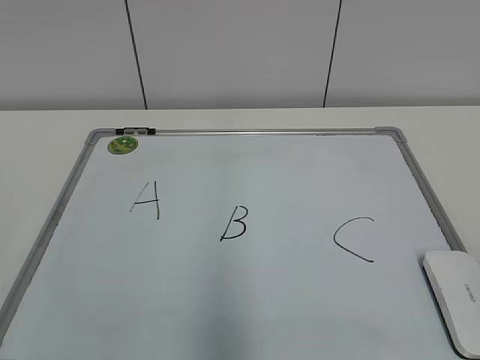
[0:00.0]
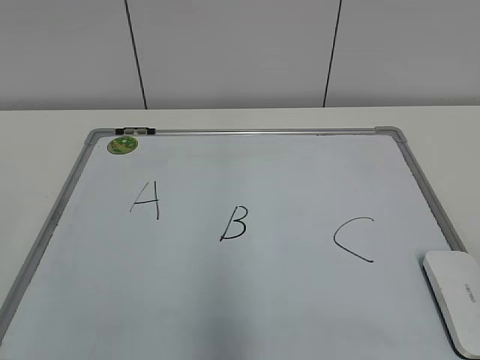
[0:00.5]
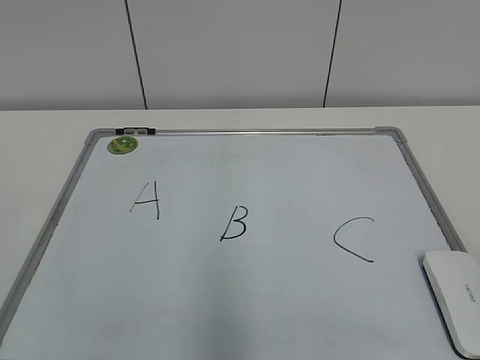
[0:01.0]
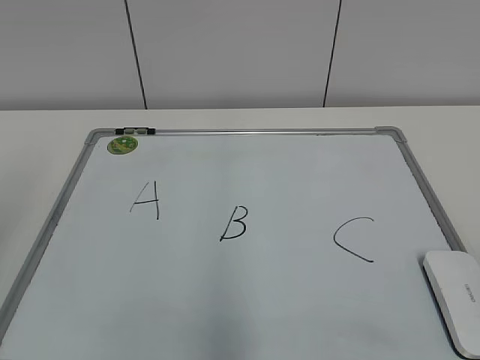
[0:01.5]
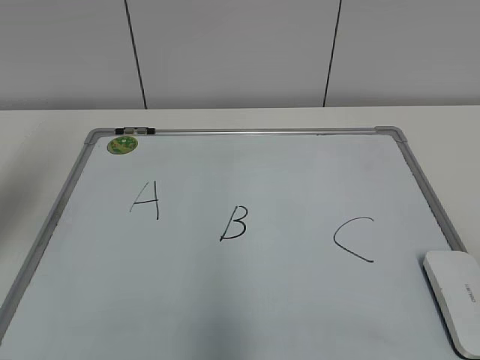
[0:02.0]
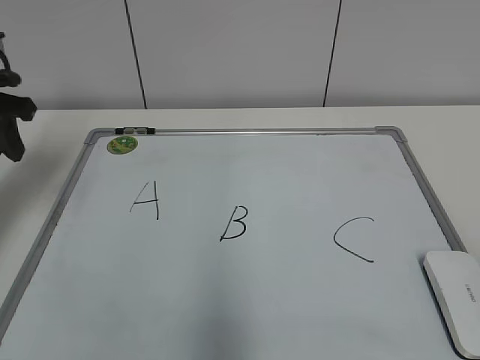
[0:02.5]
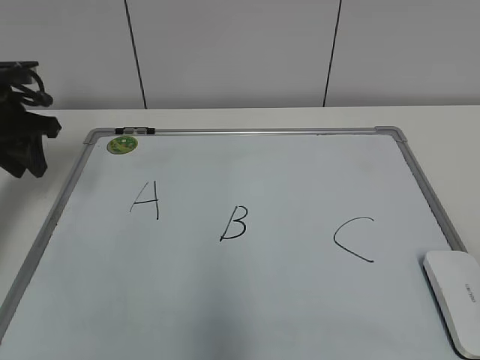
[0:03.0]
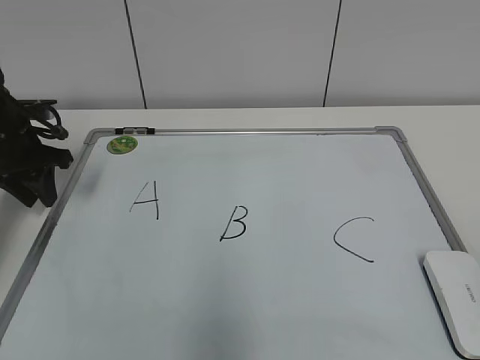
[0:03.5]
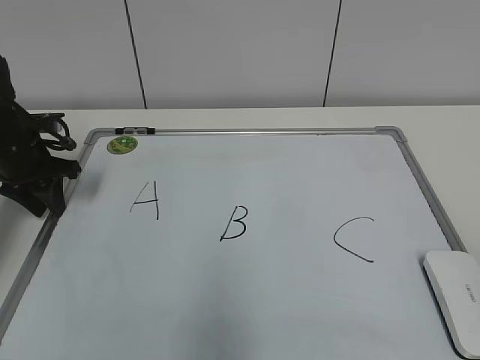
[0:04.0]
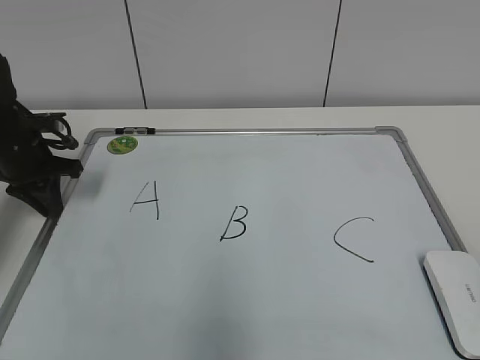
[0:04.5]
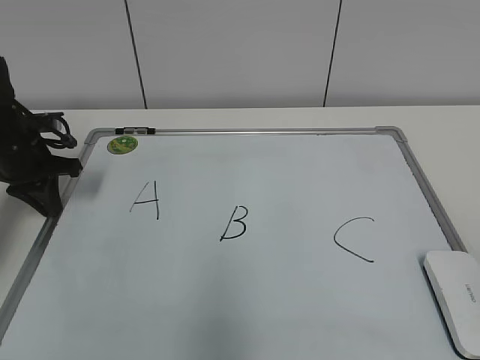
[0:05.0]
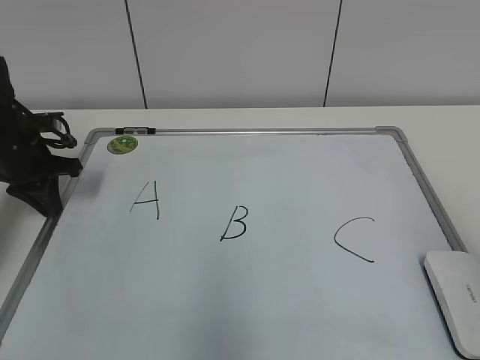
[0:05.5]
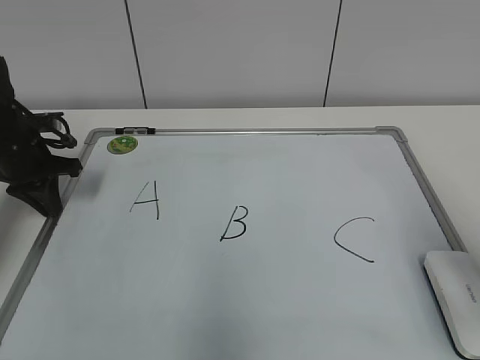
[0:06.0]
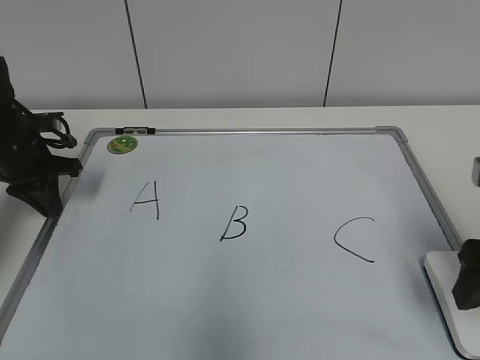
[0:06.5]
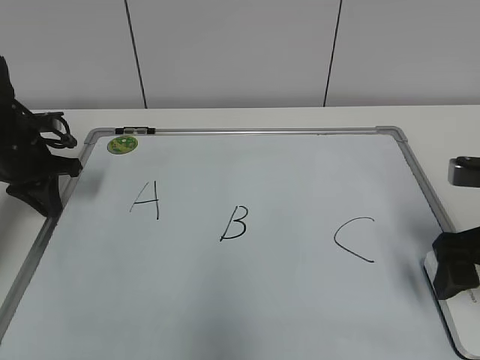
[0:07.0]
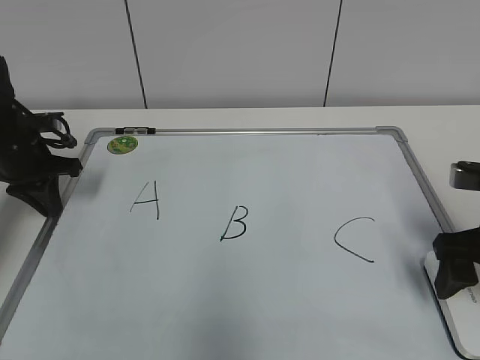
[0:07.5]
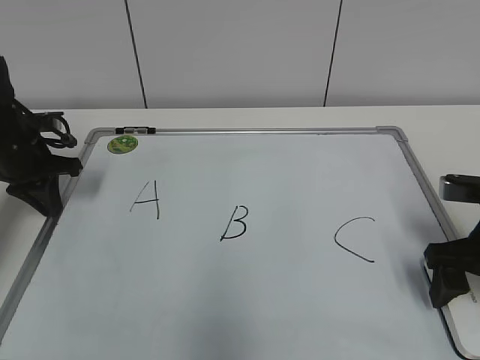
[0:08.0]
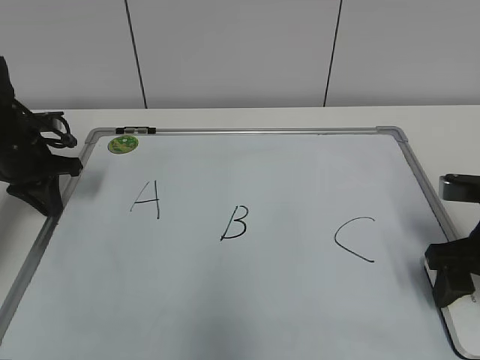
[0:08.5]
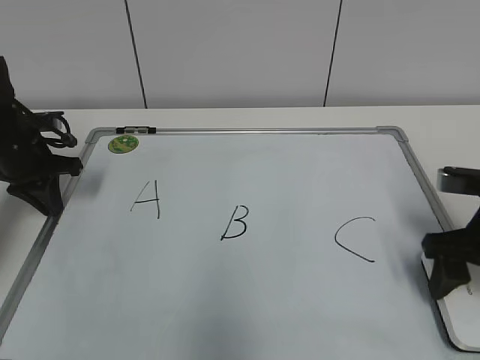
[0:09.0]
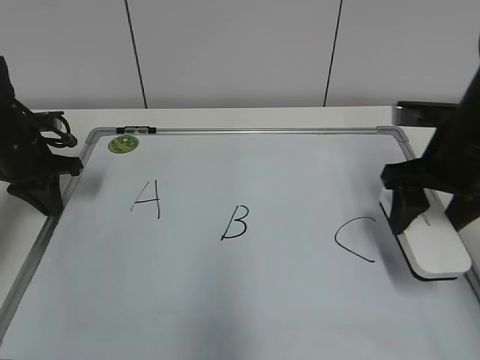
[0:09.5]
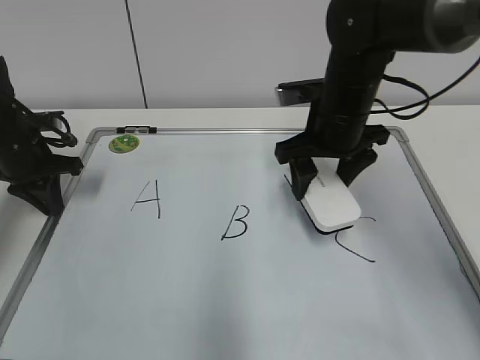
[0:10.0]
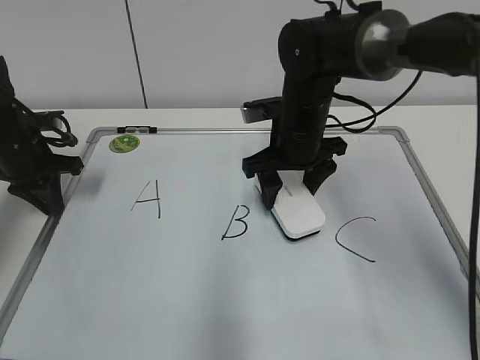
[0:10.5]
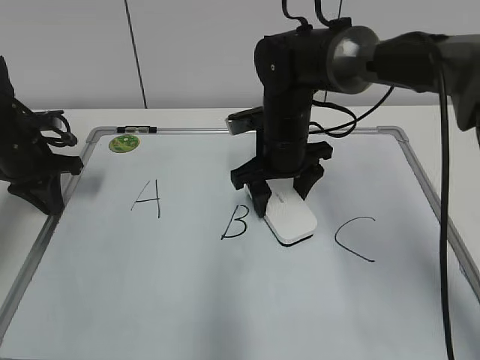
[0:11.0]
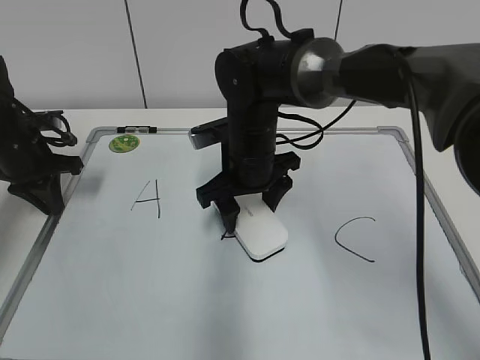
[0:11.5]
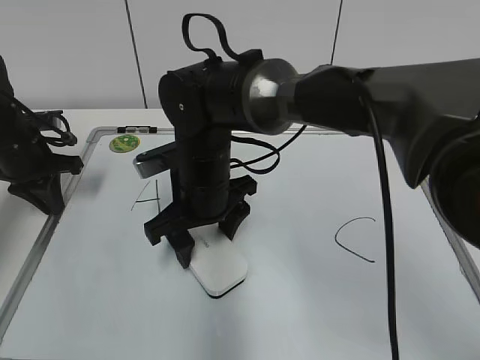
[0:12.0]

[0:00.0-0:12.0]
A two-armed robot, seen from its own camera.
Task of the whole recording: pick up the eraser on the blackboard and erase the letter "B".
Step, 0:00.0 to 0:04.5: Hold the drawing board steady with your left hand.
Step, 0:05.0 to 0:08.5: Grab the eraser with your right hand.
Step, 0:09.0 to 0:12.0: Erase the letter B with your right hand.
0:02.0 to 0:04.0: The left gripper heads downward and forward, covering roughly 25 cm.
0:04.0 to 0:06.0: The left gripper closes up. The right gripper moves forward, roughly 15 cm.
0:06.0 to 0:08.0: The right gripper shifts roughly 15 cm downward and forward, and opens up.
0:08.0 to 0:10.0: The right gripper heads to the left, forward and upward, covering about 20 cm, and closes.
0:10.0 to 0:12.0: The right gripper travels to the left by some 15 cm.

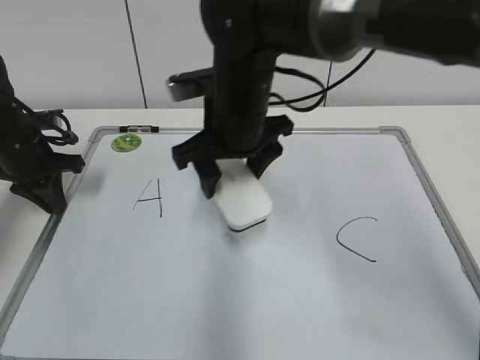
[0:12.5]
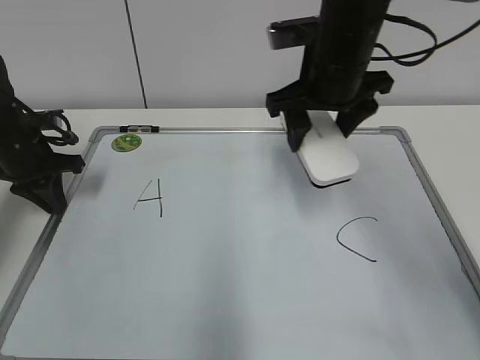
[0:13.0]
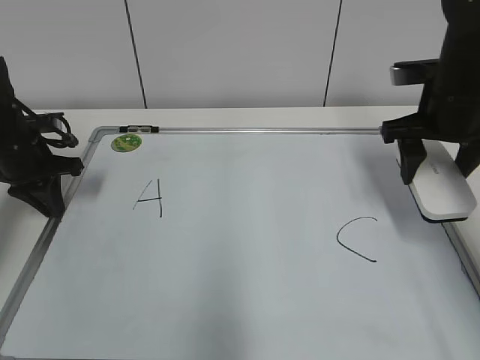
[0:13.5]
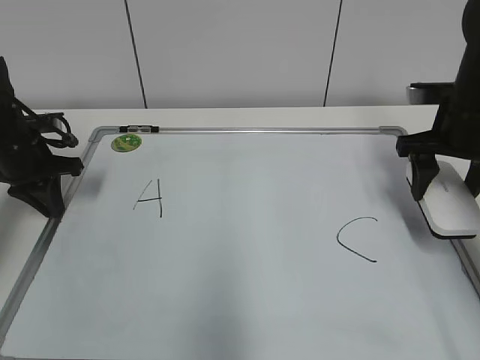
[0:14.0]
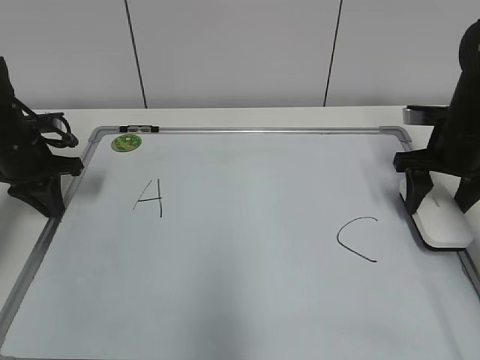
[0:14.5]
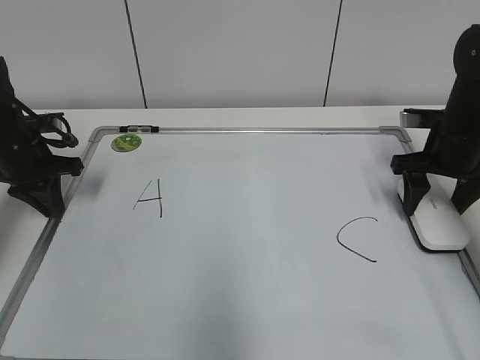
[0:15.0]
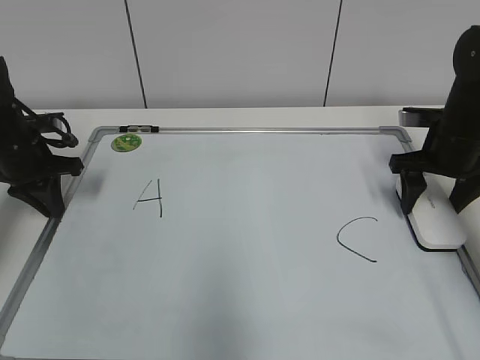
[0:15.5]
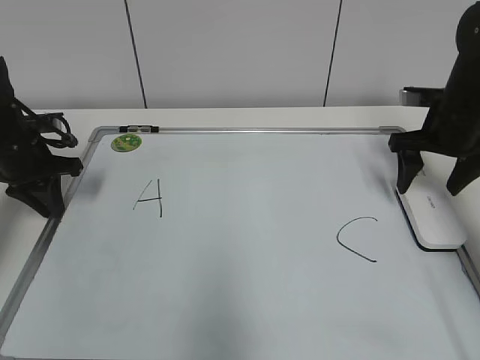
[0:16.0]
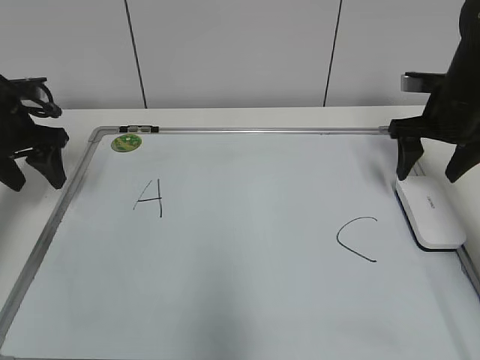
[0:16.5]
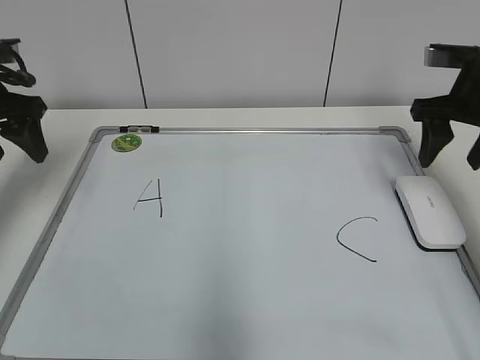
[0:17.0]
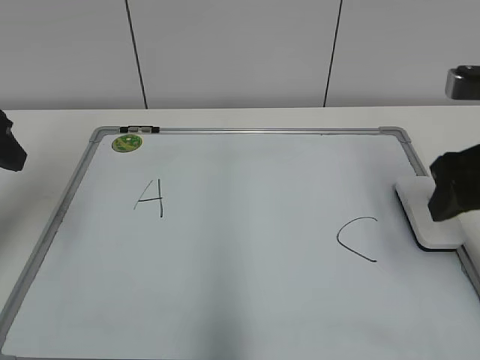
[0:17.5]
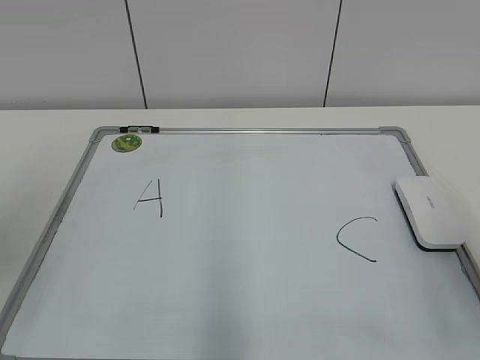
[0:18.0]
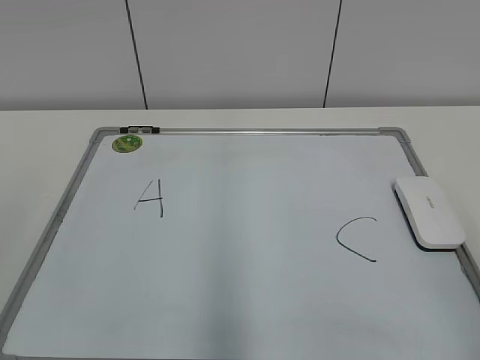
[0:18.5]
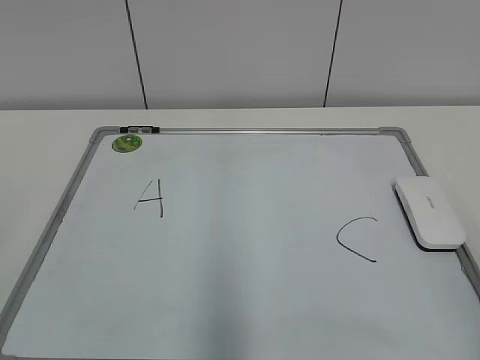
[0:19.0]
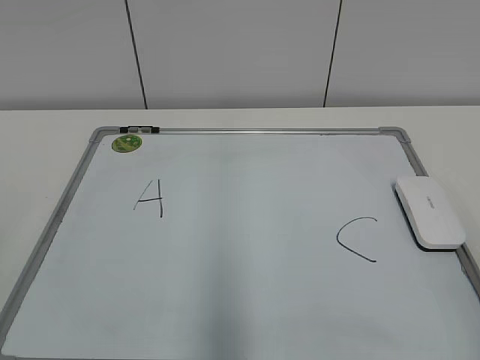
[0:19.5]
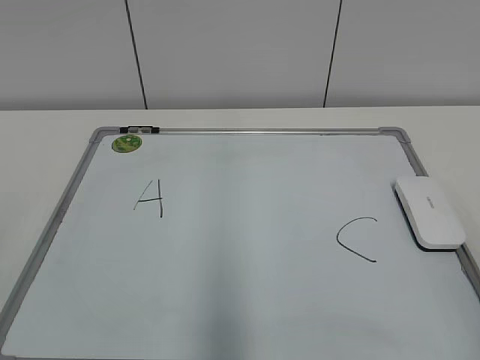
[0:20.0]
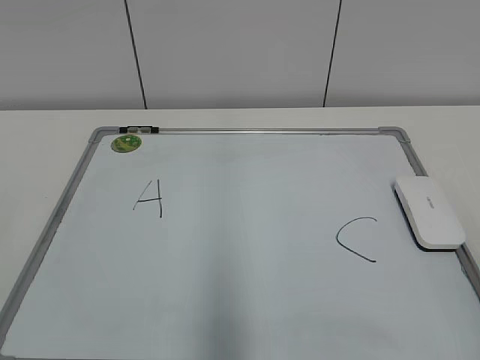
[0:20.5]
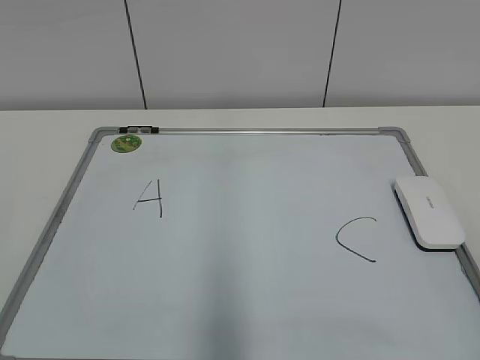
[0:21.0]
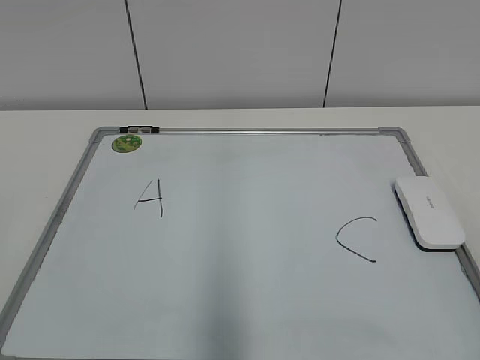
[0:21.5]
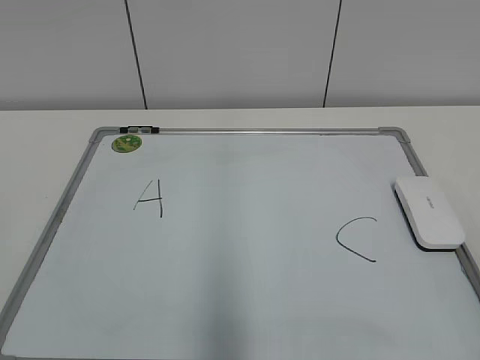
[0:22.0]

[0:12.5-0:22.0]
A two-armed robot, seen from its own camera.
Task of the whole recording: pick up the eraser on the blackboard and erase the letter "B".
Step, 0:12.5 to 0:15.5: Put down the eraser with your right hand.
0:12.5 to 0:14.5: The right gripper moves to the right, roughly 30 cm.
0:14.5 to 0:16.5: The left gripper is displaced upward by some 5 cm, and opens. The right gripper opens its fingers.
0:16.5 to 0:18.0: The left gripper goes roughly 25 cm backward and upward, while the right gripper goes roughly 30 cm backward, and closes its fingers.

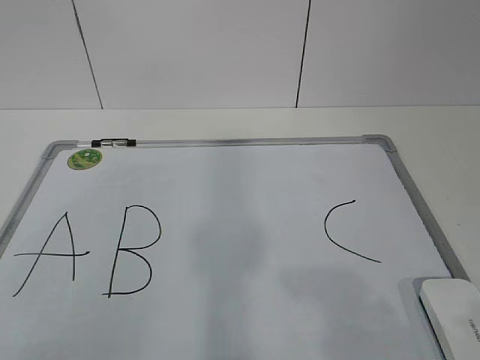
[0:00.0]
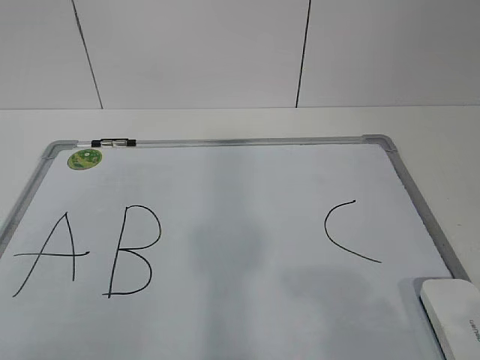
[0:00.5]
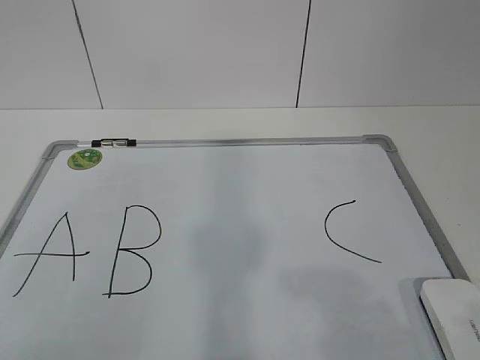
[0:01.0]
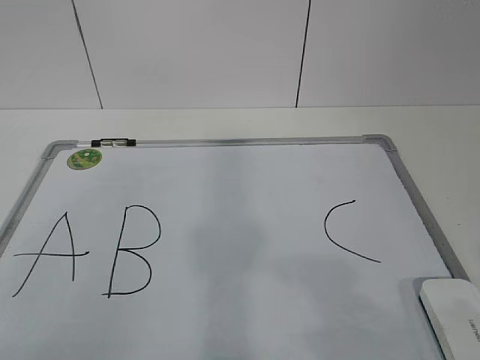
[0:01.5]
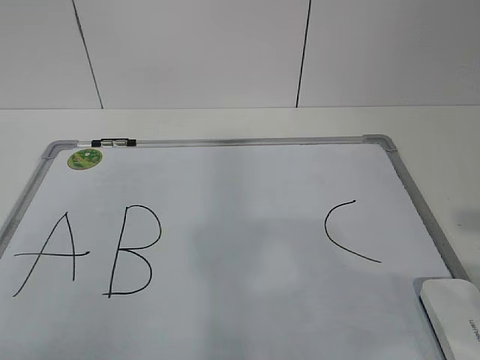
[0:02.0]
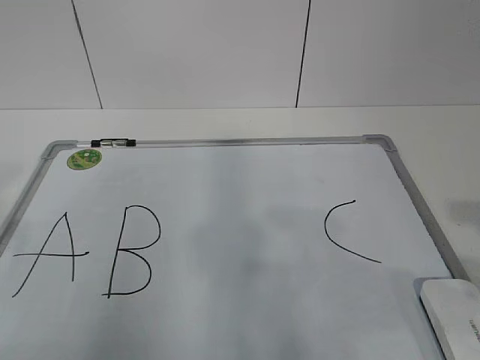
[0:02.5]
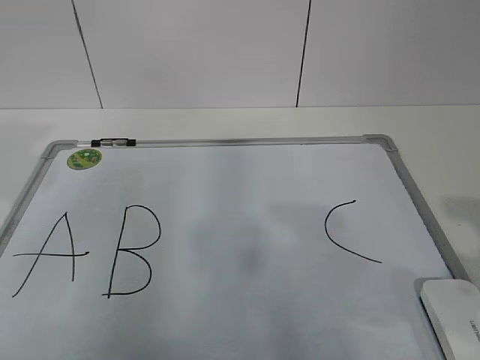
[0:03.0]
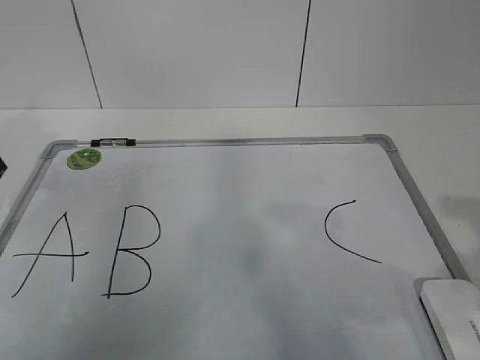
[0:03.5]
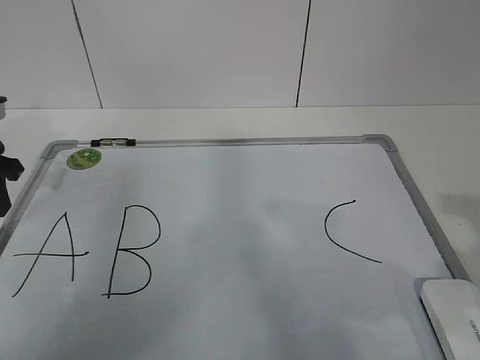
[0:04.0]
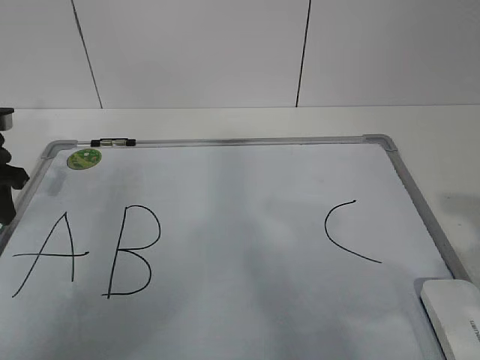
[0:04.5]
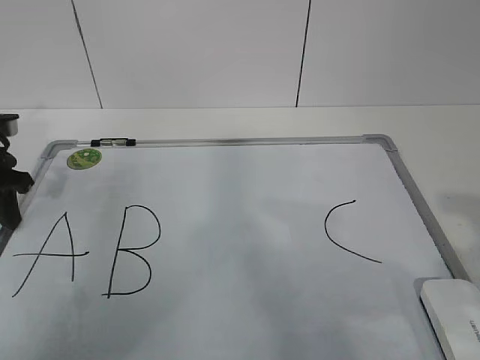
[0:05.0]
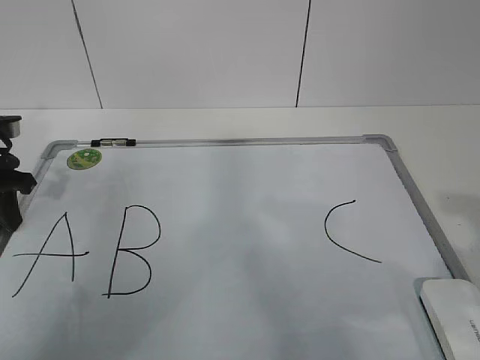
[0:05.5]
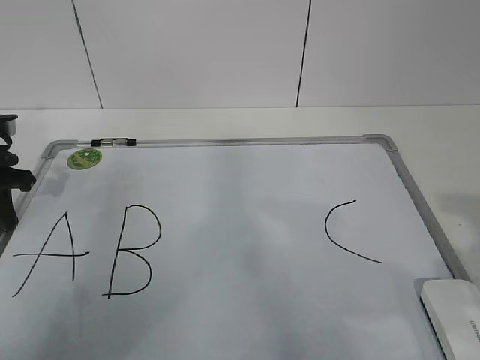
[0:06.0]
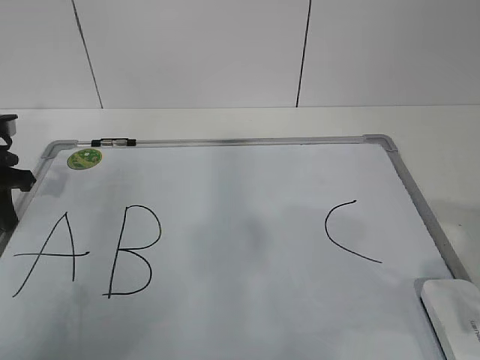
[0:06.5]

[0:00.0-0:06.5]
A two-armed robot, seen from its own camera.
Task of the whole recording: pick up the eraser on the blackboard and erase the letter "B".
Step, 0:00.0 to 0:04.5: Hold the drawing board steady with your left hand.
0:02.0 to 0:04.5: The left gripper shifts roughly 35 cm forward.
0:04.5 to 0:06.5: The left gripper closes; the right gripper opens.
